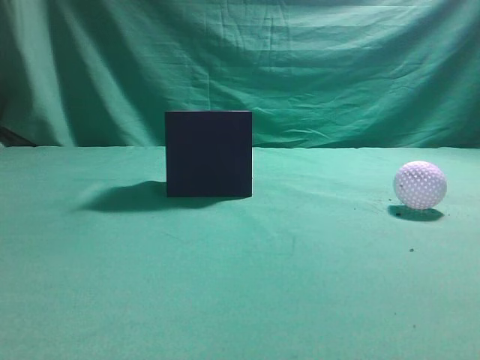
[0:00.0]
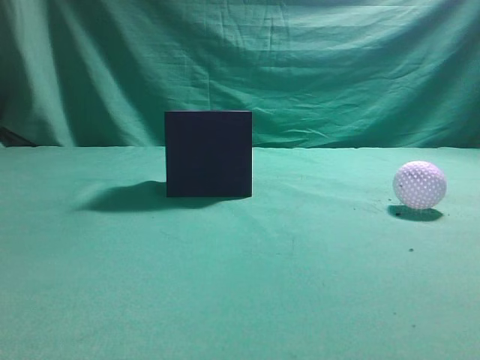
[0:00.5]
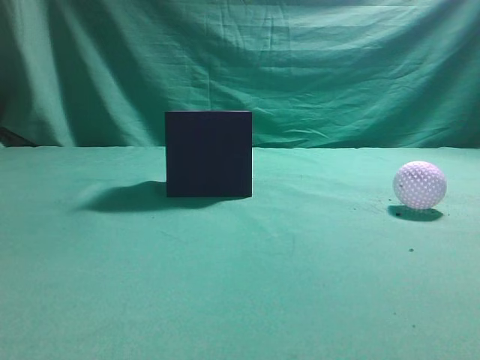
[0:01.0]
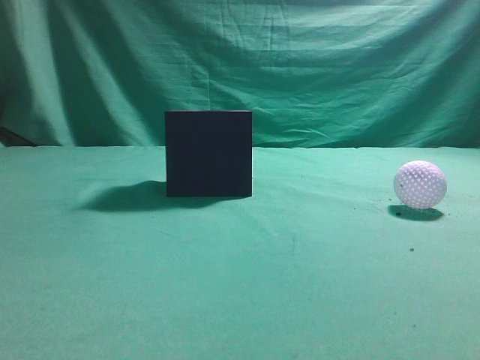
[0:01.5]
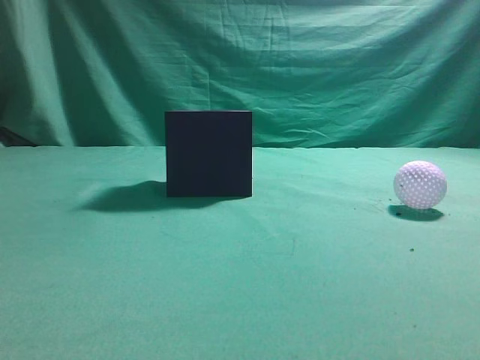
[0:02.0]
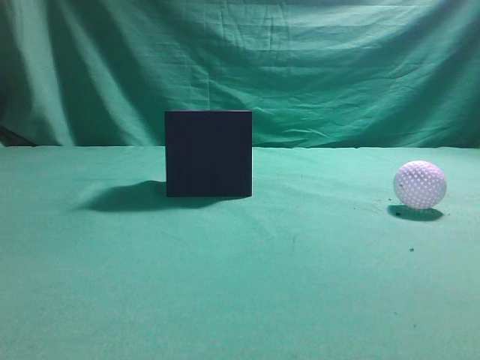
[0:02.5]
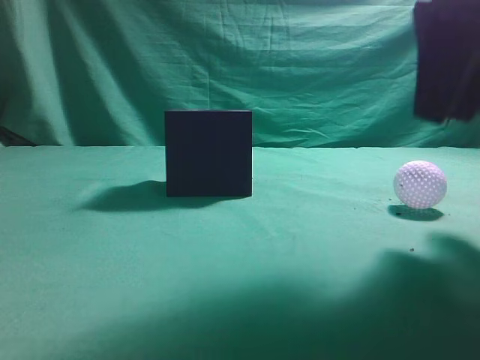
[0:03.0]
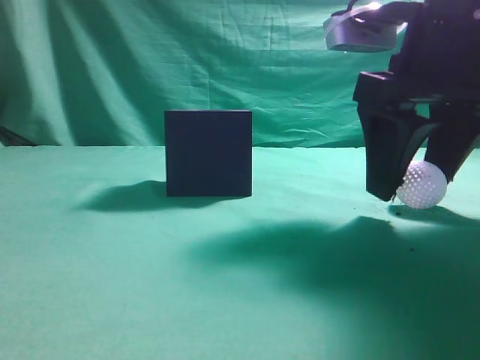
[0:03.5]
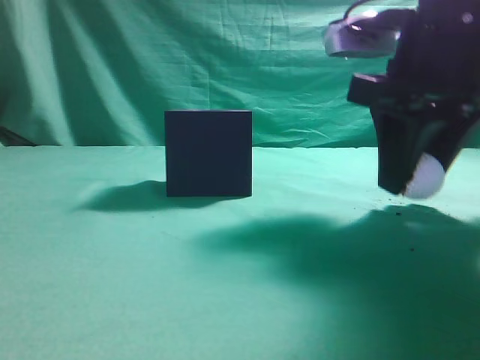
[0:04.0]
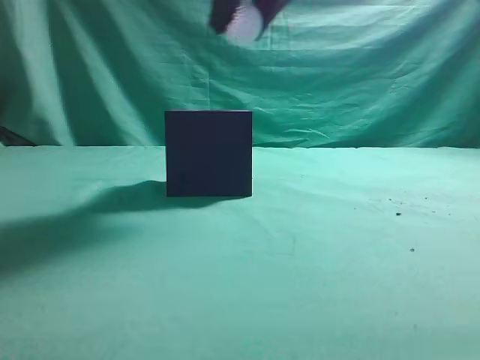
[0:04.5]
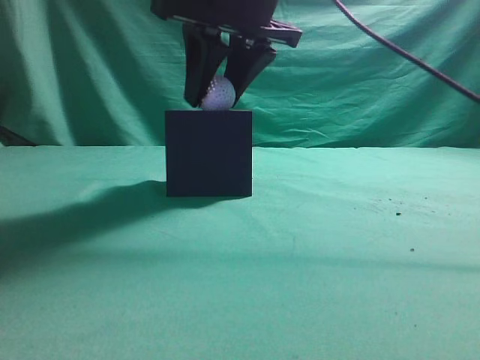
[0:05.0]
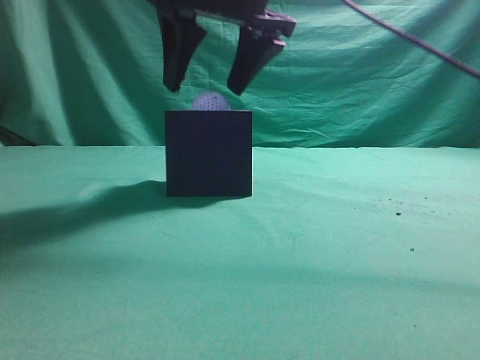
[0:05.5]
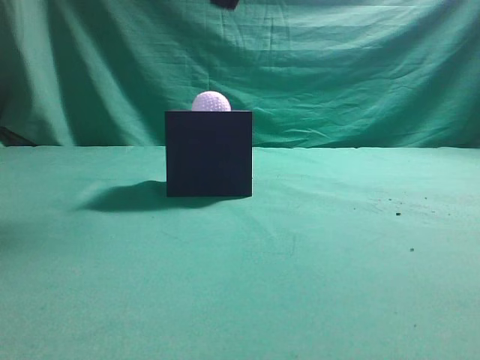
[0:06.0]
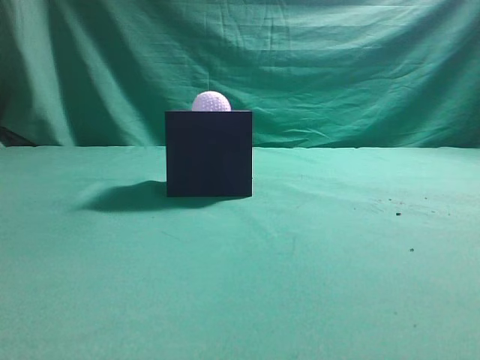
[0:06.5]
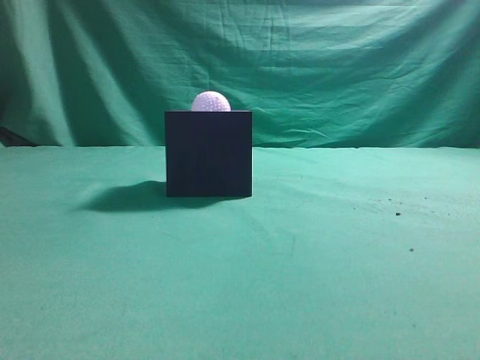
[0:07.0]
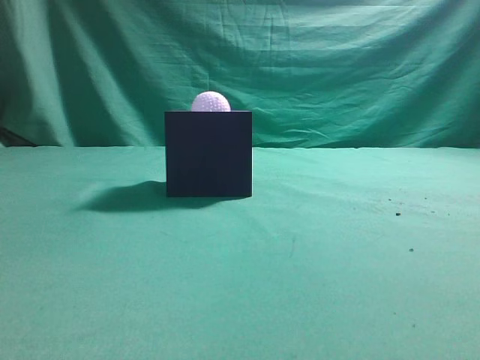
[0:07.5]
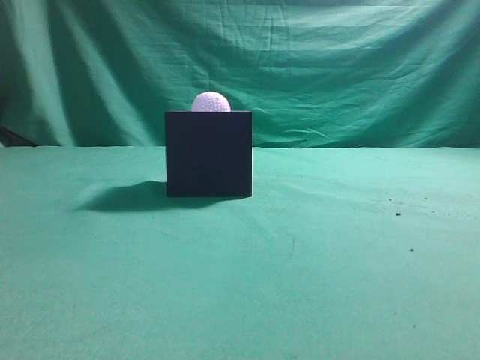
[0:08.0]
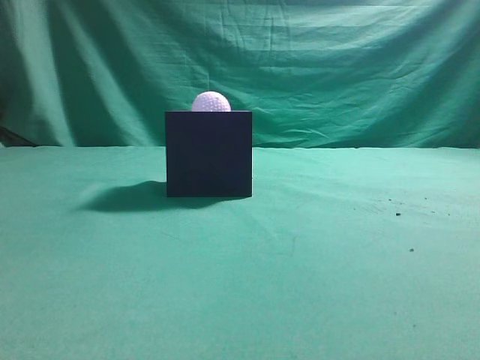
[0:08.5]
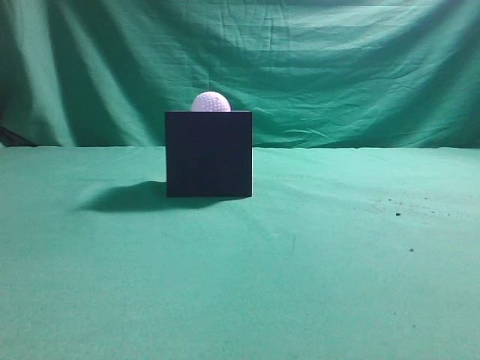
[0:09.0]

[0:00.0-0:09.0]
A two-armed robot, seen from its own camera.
Task of the whole recording: Pick up the ball and place it in the circular groove above the cube.
Step, 0:00.0 to 0:04.0: Grasp the sphere on the table.
Step, 0:04.5 to 0:05.5: Place the sphere into the sphere-shaped recess.
0:02.0 to 0:04.5: The right gripper shifts approximately 35 cm forward and to the left, and opens.
0:04.5 to 0:07.0: The right gripper travels backward and to the right by roughly 25 cm, and closes.
